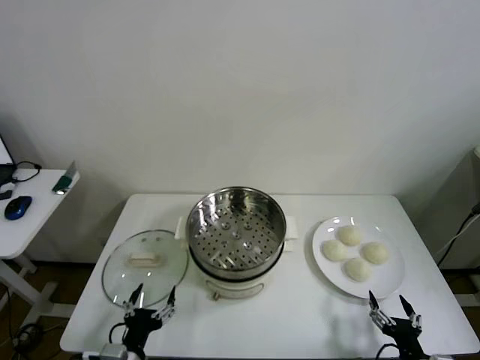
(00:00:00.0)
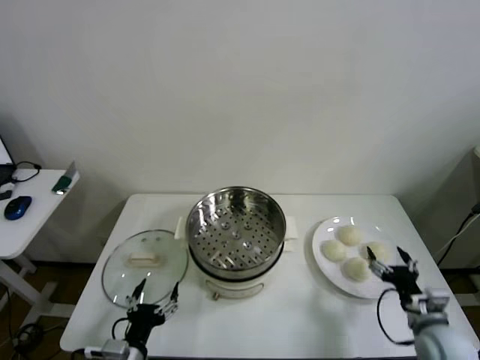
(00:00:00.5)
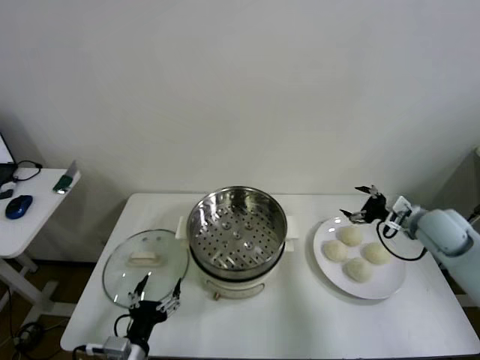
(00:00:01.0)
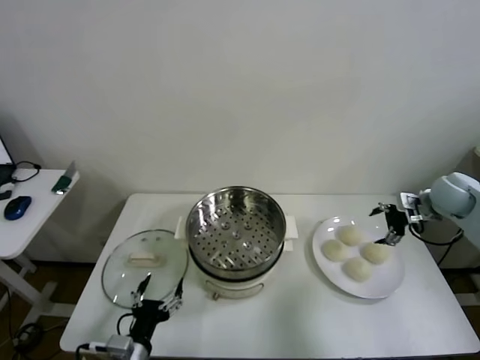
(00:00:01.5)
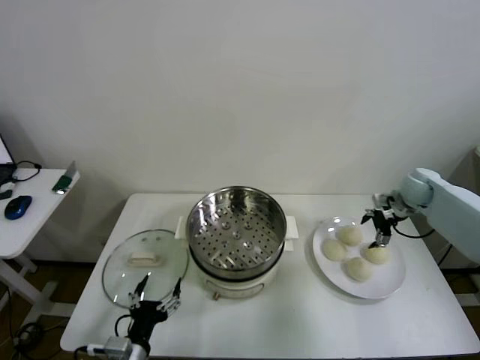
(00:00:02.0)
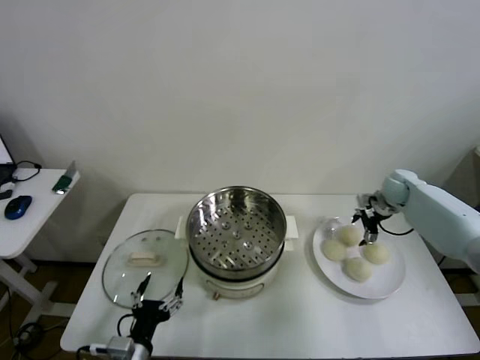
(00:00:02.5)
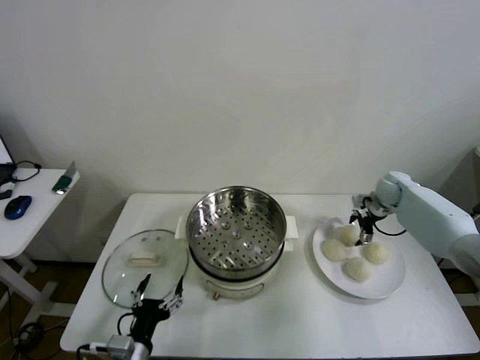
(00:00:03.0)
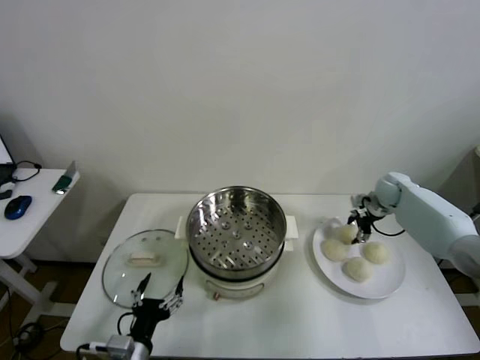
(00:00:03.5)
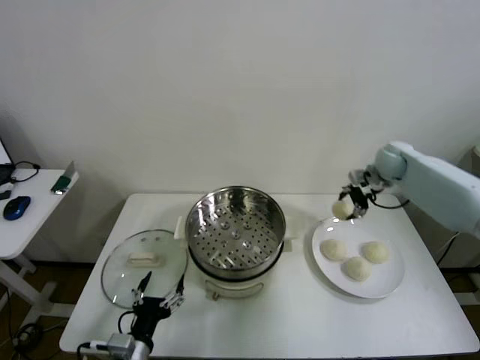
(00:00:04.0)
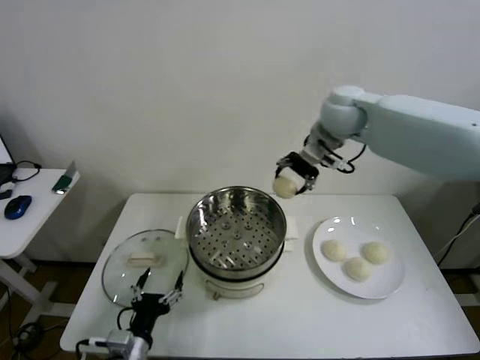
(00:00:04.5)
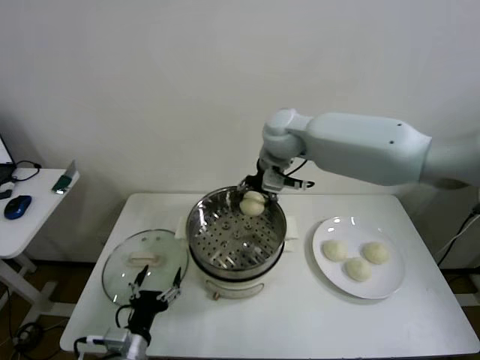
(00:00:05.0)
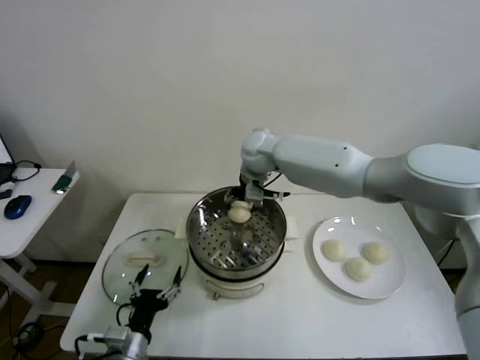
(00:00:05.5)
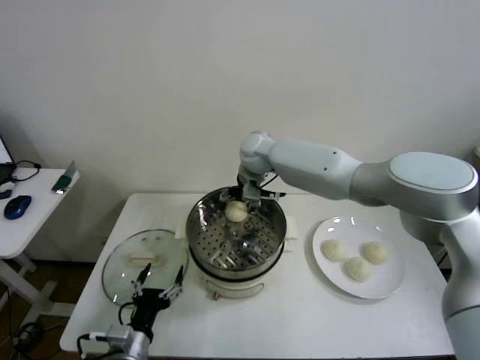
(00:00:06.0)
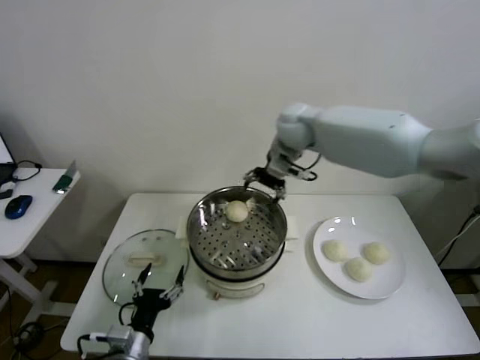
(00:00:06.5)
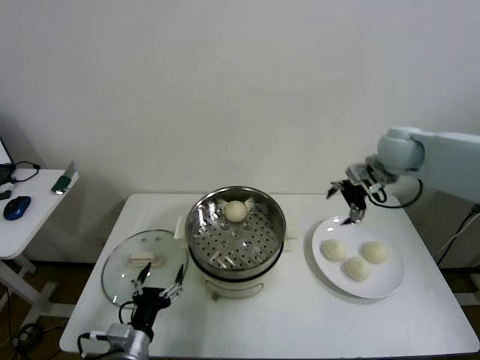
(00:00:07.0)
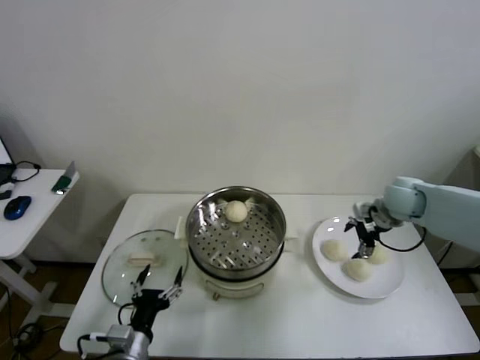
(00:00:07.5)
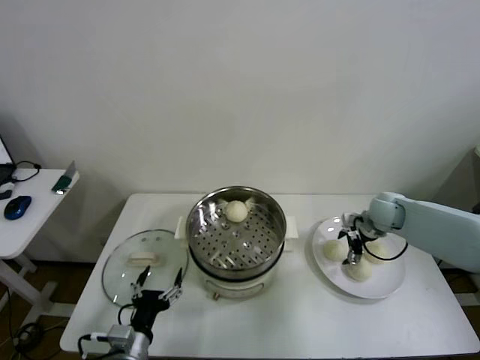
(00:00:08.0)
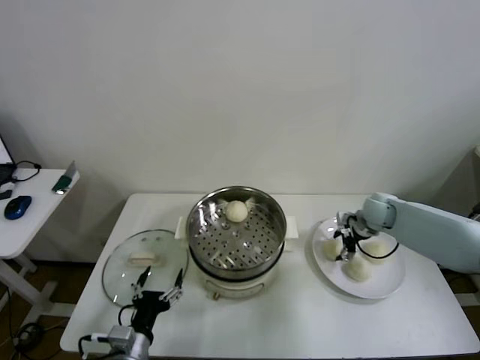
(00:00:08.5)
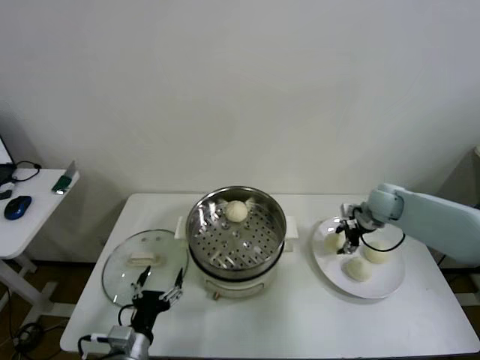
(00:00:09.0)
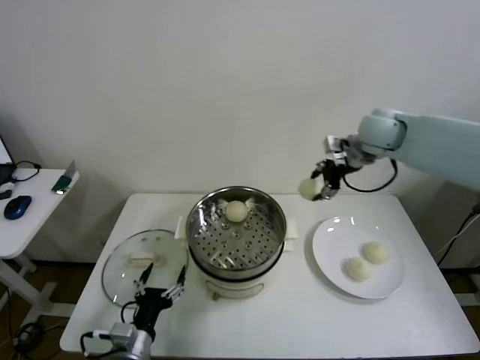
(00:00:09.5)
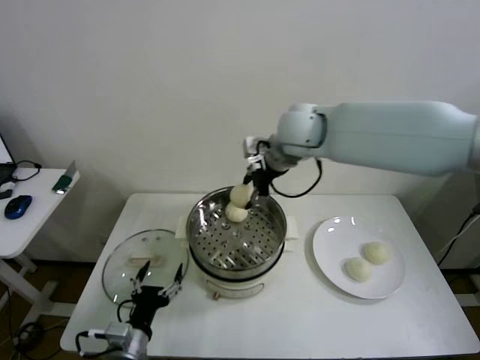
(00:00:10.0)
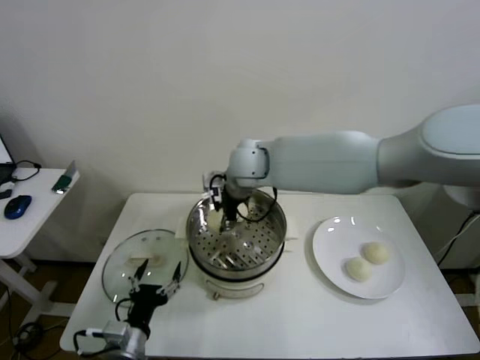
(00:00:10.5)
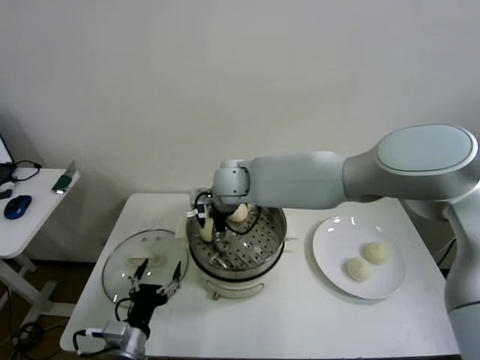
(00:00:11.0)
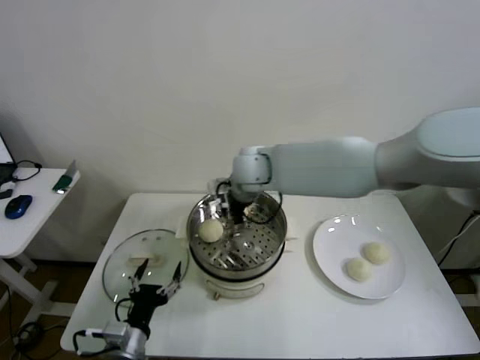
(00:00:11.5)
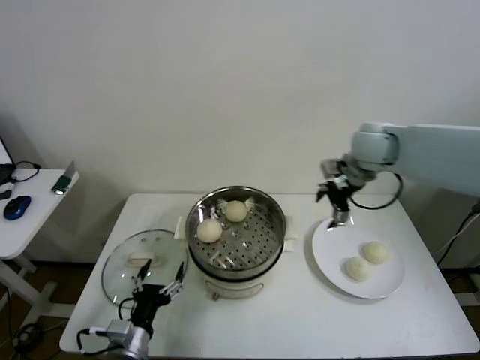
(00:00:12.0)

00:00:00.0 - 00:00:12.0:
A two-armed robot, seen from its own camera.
Step, 00:00:00.0 - 00:00:03.0: Grasp the baozi in the plate with right gripper.
Step, 00:00:03.5 - 00:00:06.0: Place the baozi on the steamer with right gripper.
Step, 00:00:06.5 - 00:00:08.5: Grasp the baozi in the plate with right gripper.
Step, 00:00:09.0 - 00:00:11.5: Place the baozi on the steamer with right gripper.
00:00:02.0 - 00:00:04.0: The right gripper heads upward and to the left, covering about 15 cm, and closes.
00:00:04.0 - 00:00:06.0: The right gripper is displaced to the left by about 30 cm, and opens.
00:00:06.0 - 00:00:08.0: The right gripper shifts approximately 35 cm to the right and downward.
00:00:08.0 - 00:00:10.0: The right gripper travels to the left and upward by roughly 35 cm, and closes its fingers.
00:00:10.0 - 00:00:12.0: The right gripper shifts approximately 20 cm to the right, and opens.

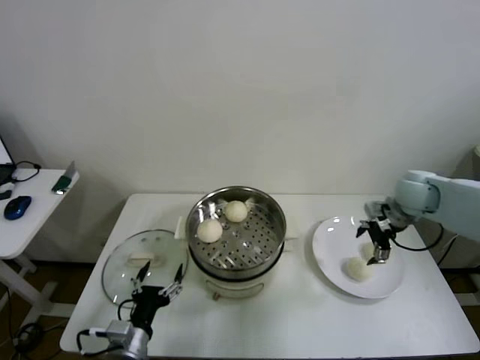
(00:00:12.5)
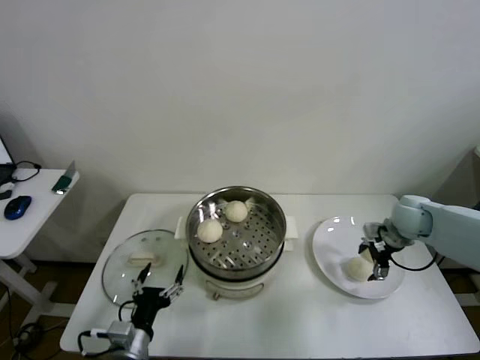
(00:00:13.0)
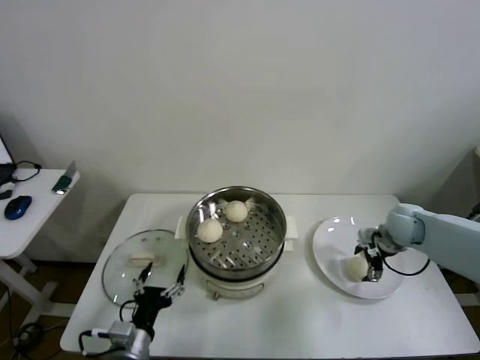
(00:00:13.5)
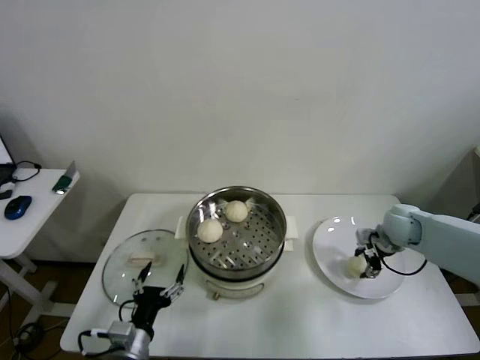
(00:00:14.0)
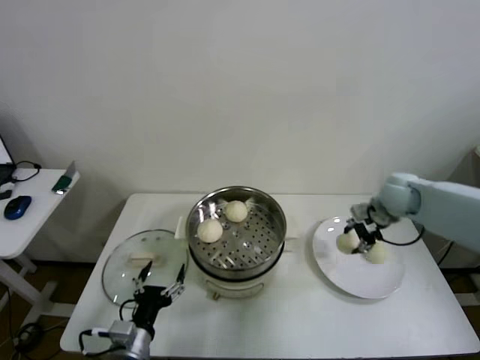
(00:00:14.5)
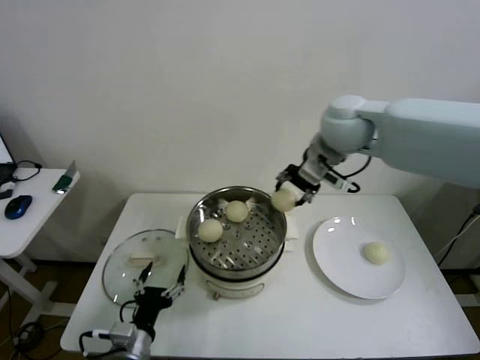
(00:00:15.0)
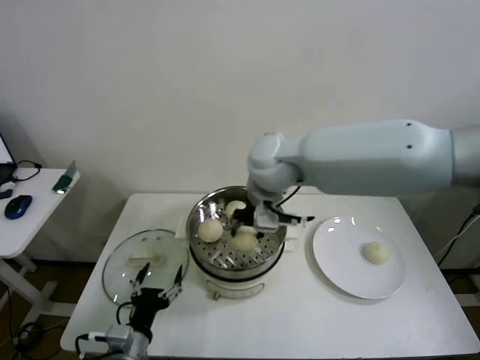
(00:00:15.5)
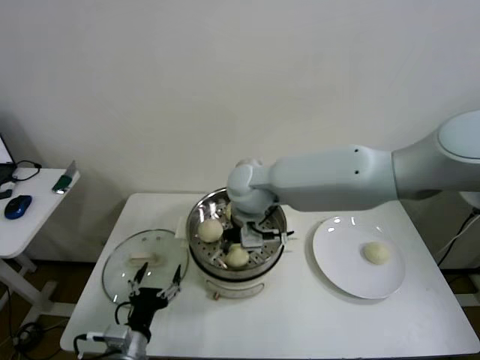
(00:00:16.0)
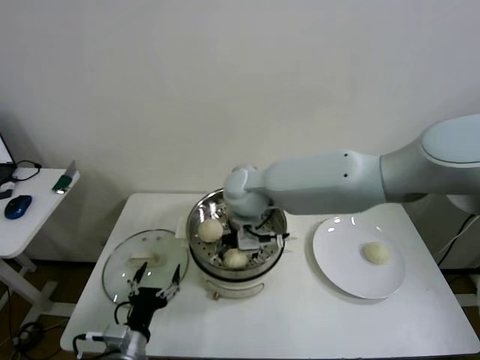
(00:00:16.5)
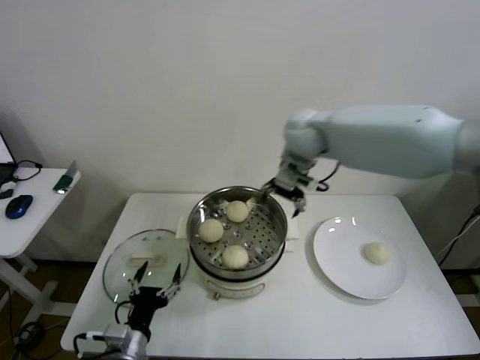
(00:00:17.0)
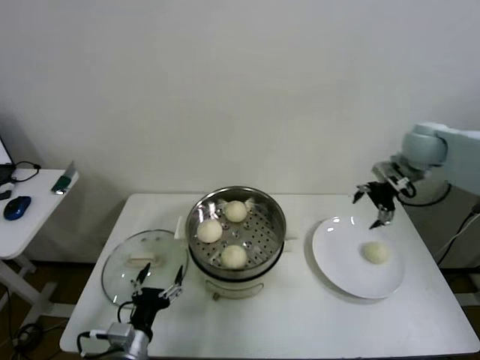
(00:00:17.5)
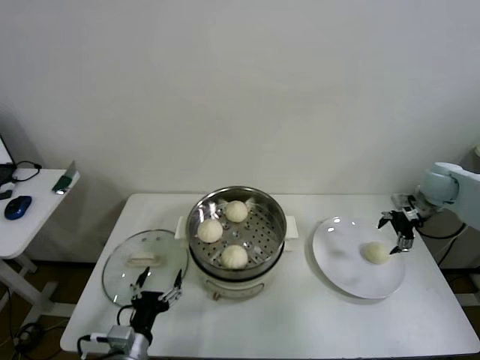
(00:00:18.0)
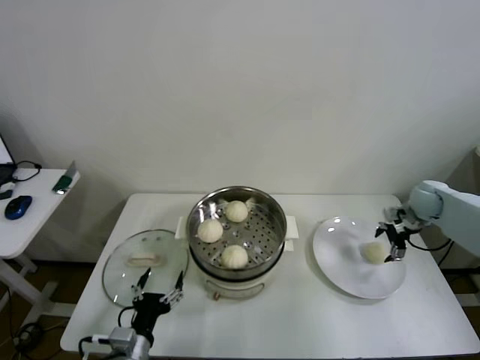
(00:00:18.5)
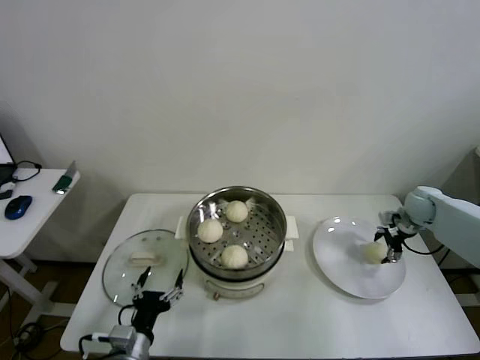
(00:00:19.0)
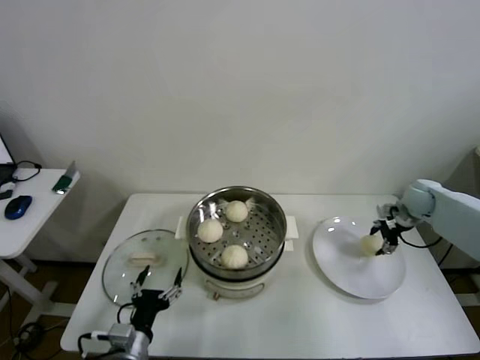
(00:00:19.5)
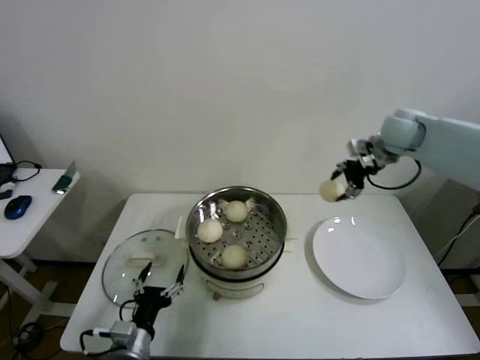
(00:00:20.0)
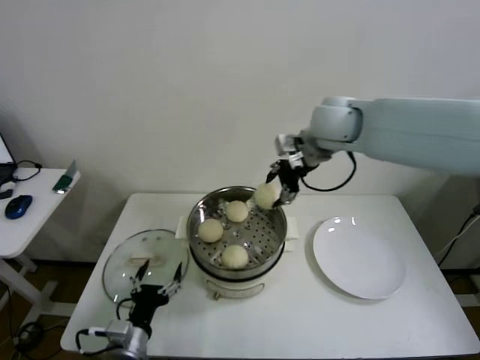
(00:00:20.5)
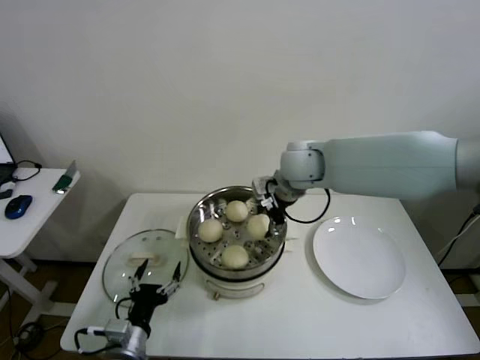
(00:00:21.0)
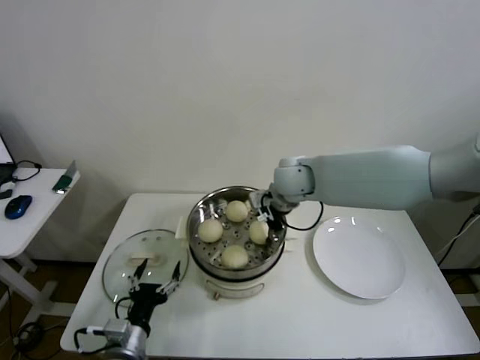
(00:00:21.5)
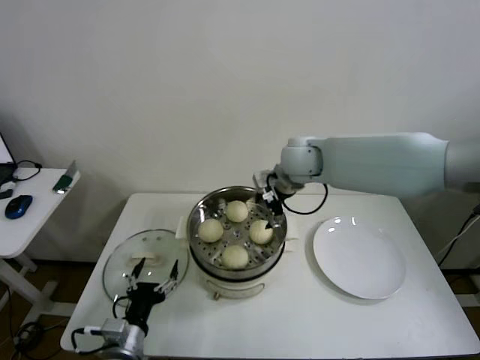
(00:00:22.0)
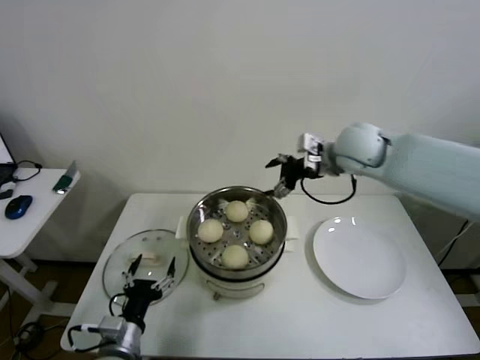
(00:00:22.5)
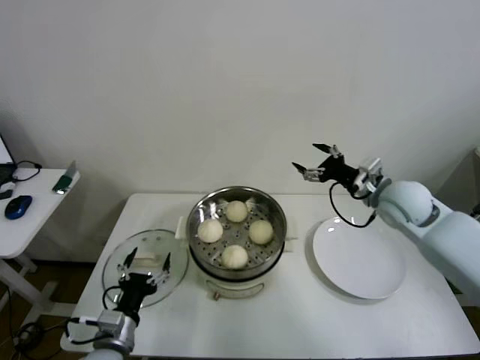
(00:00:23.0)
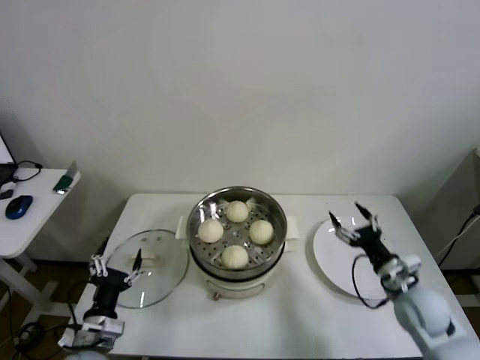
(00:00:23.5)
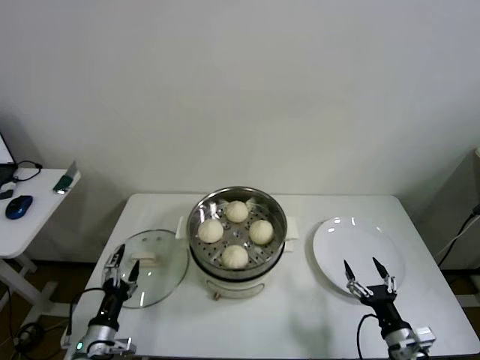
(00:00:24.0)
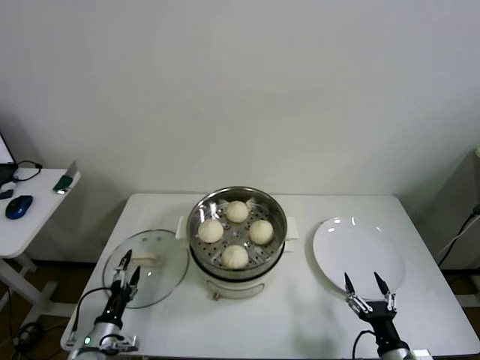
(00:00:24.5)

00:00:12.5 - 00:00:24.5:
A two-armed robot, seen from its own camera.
Step, 00:00:12.5 - 00:00:14.0: Grasp the baozi in the plate with right gripper.
Step, 00:00:14.5 - 00:00:16.5: Place the baozi on the steamer with right gripper.
Step, 00:00:17.0 - 00:00:19.0: Grasp the baozi in the plate with right gripper.
Step, 00:00:19.5 - 00:00:21.5: Place the baozi on the steamer with right gripper.
00:00:12.5 - 00:00:14.5: The right gripper moves approximately 10 cm downward and comes back, and closes up.
00:00:14.5 - 00:00:16.5: The right gripper is displaced to the left by about 35 cm, and opens.
00:00:16.5 - 00:00:18.5: The right gripper goes roughly 50 cm to the right.
00:00:18.5 - 00:00:20.5: The right gripper travels to the left and upward by some 40 cm, and closes its fingers.
00:00:20.5 - 00:00:22.5: The right gripper heads downward and to the right, covering roughly 5 cm, and opens up.
00:00:22.5 - 00:00:24.5: The right gripper shifts some 50 cm downward and backward. The left gripper goes about 15 cm downward and to the left.

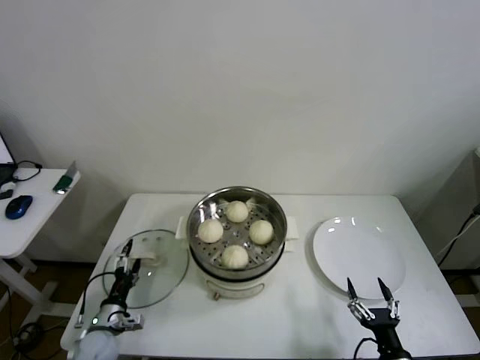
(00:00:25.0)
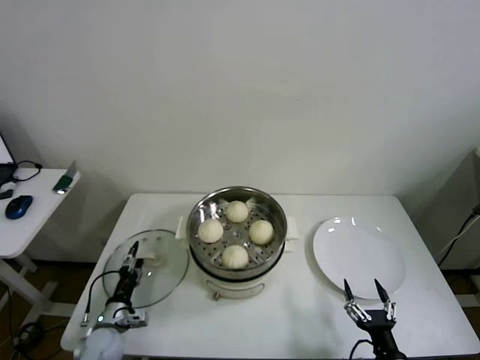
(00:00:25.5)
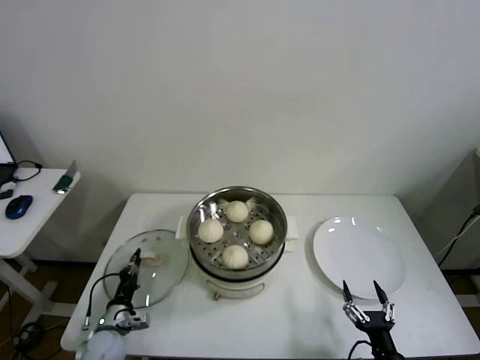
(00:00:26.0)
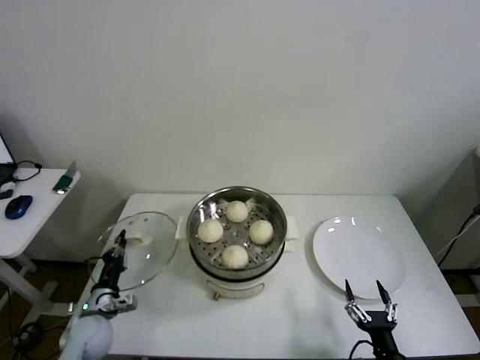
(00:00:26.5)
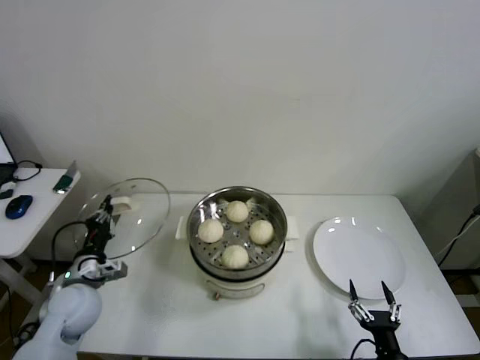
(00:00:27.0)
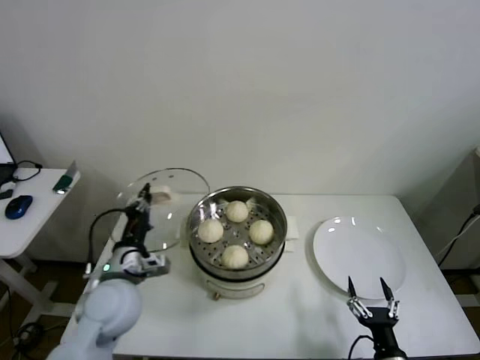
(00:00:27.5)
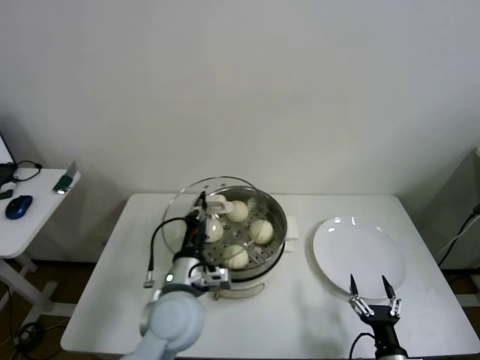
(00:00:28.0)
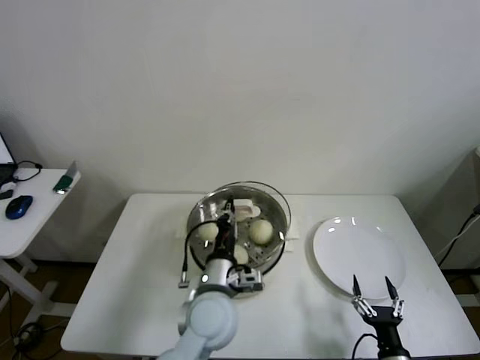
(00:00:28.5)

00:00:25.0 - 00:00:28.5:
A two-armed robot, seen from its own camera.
00:00:25.0 - 00:00:27.0: The left gripper heads upward, covering some 15 cm, and closes up.
00:00:27.0 - 00:00:28.5: The left gripper goes about 30 cm to the right.
